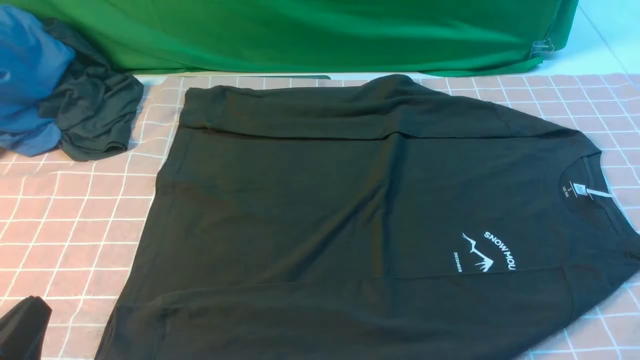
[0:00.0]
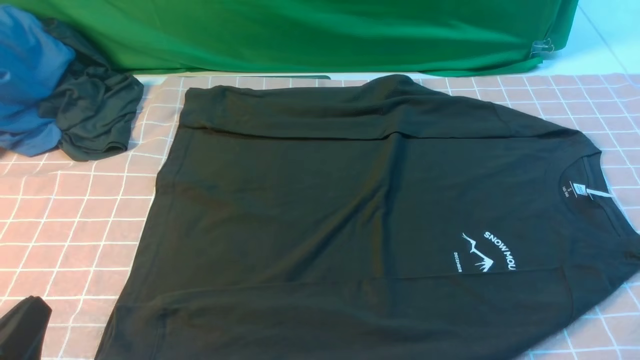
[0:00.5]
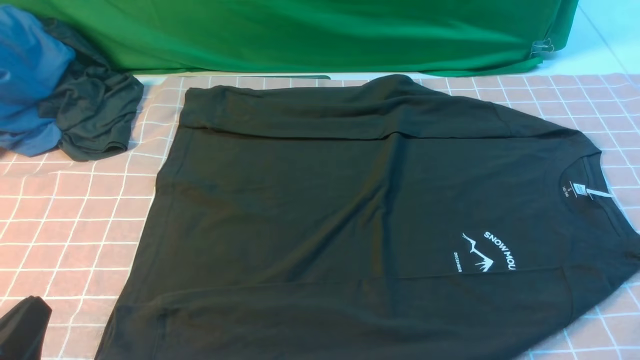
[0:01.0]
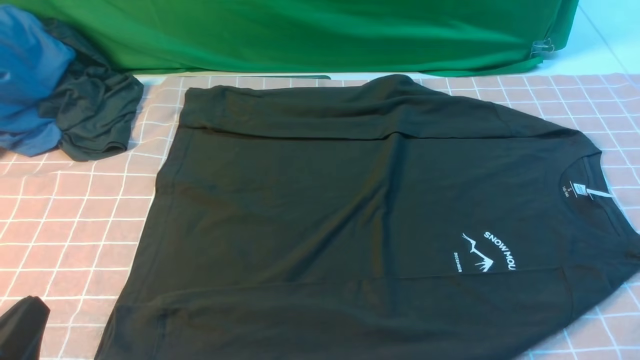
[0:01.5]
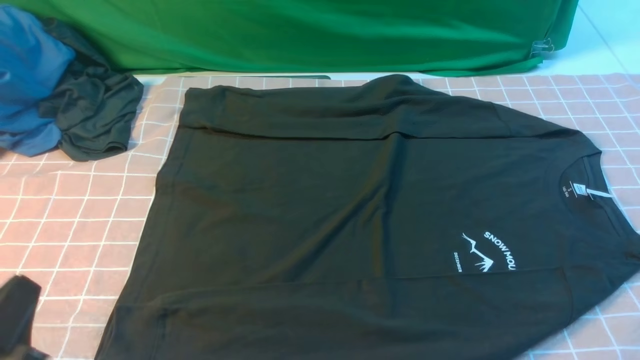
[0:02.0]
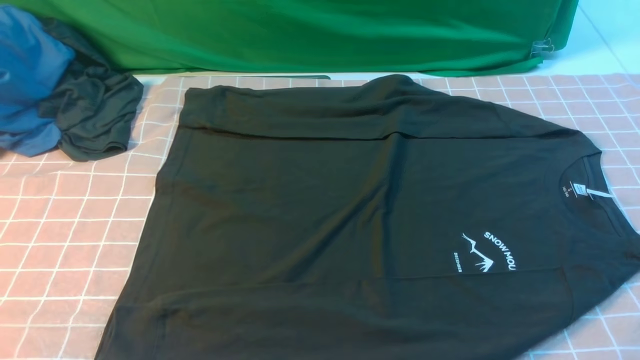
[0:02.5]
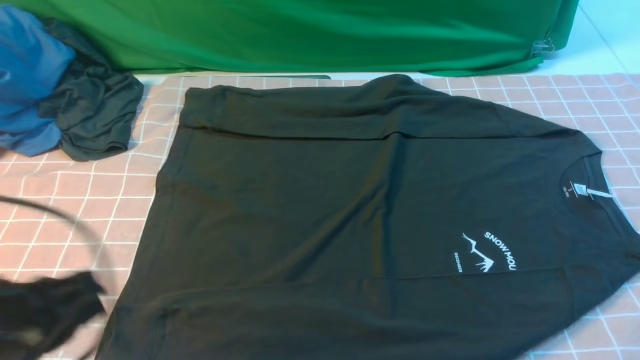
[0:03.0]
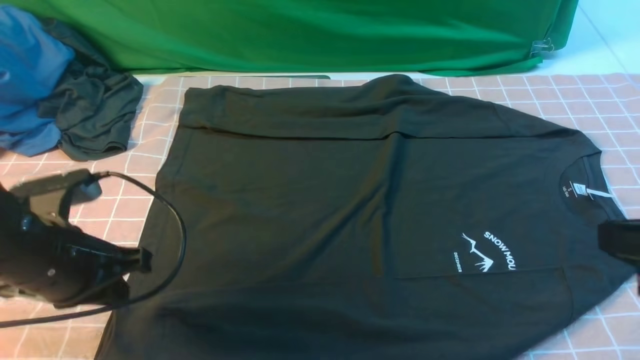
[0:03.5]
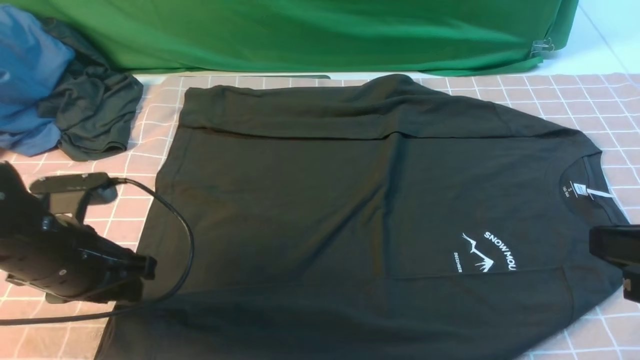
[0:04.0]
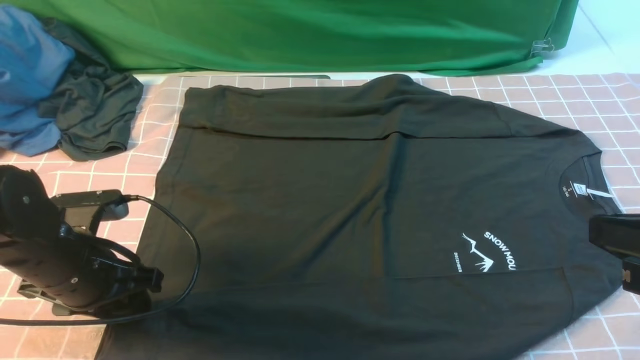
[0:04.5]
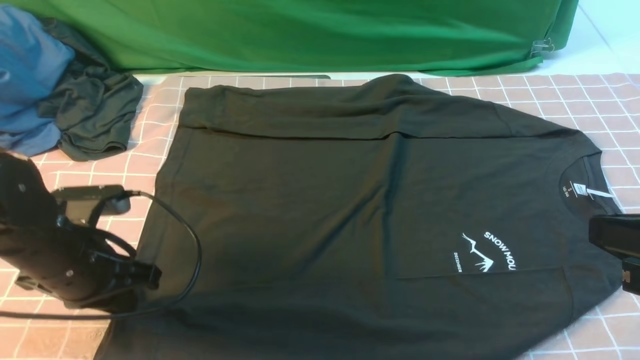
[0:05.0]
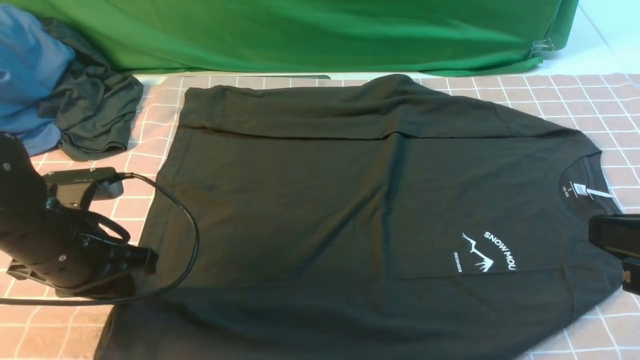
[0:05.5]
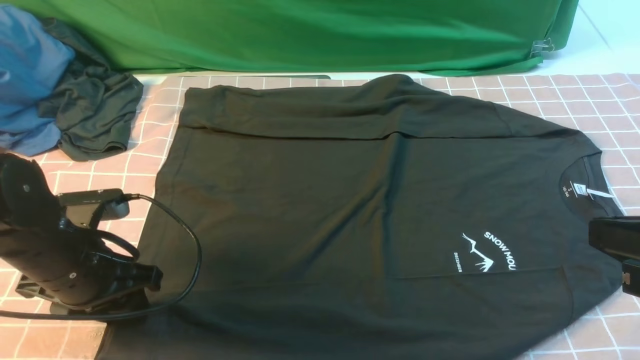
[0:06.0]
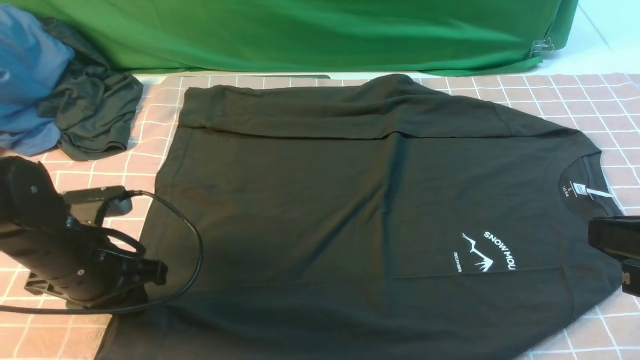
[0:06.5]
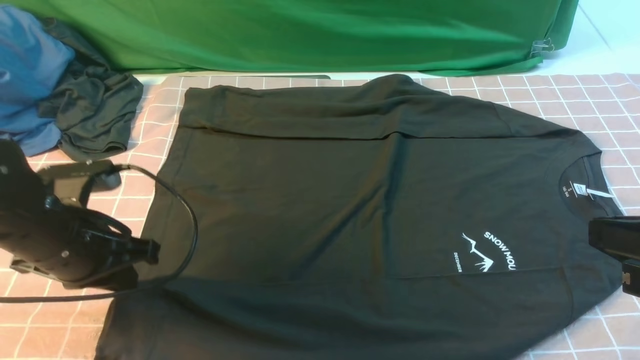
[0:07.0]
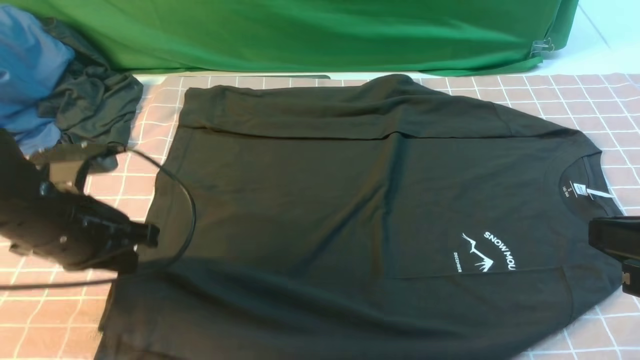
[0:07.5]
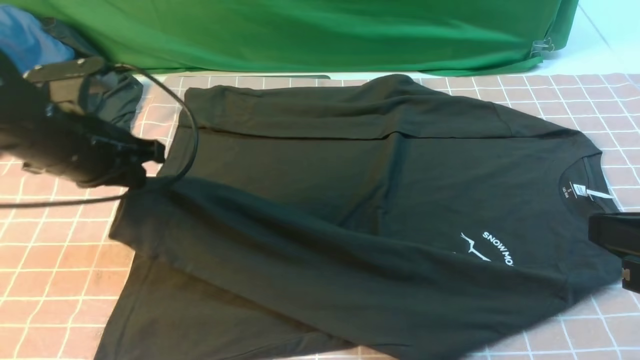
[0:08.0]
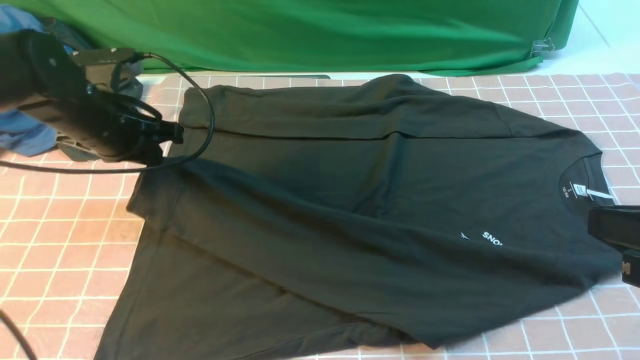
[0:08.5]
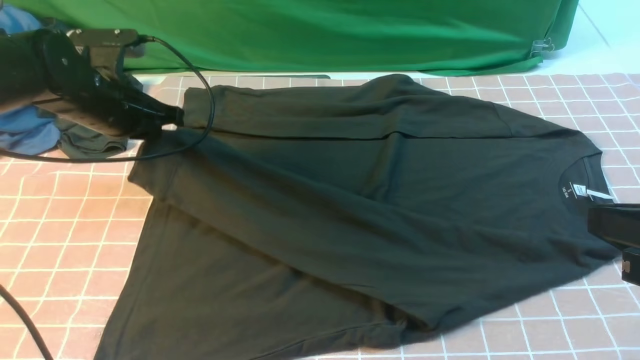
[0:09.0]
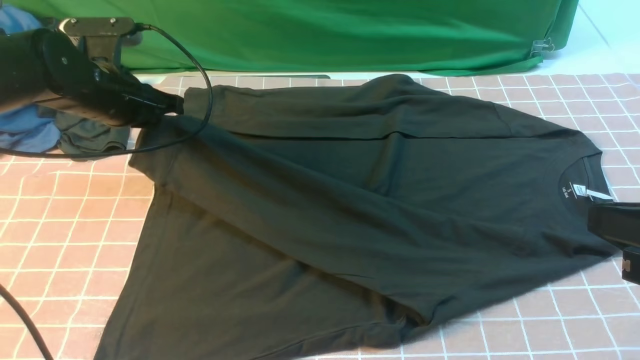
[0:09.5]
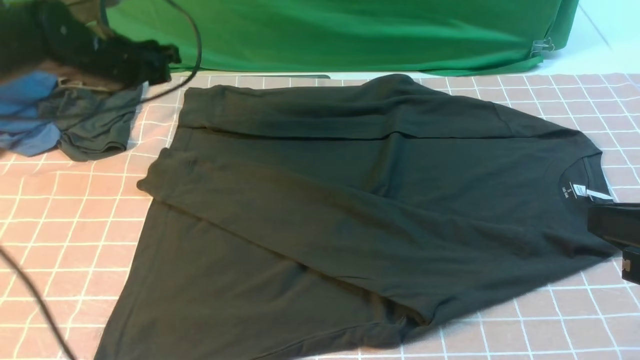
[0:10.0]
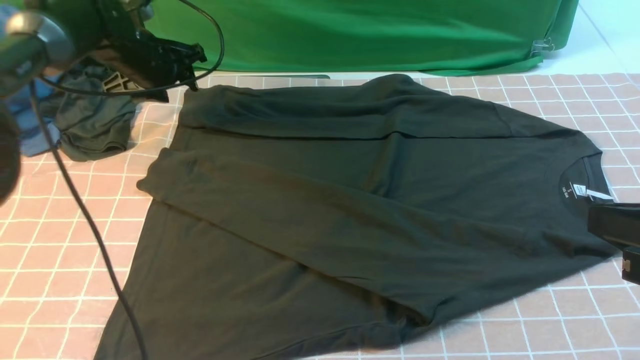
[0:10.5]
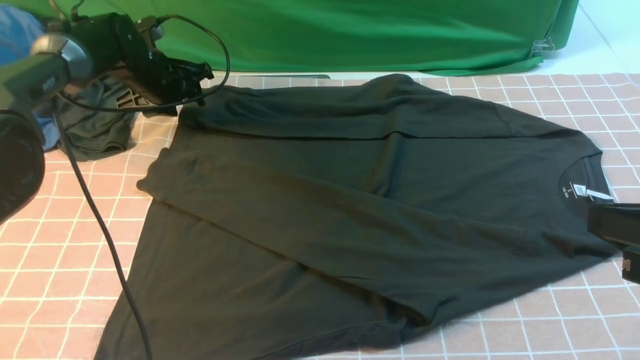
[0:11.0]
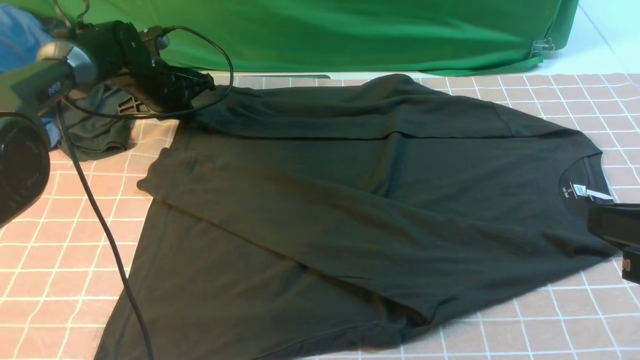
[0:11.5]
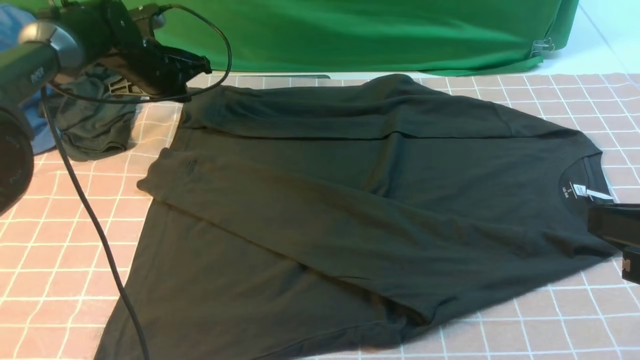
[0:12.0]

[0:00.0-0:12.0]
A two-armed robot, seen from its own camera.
Step, 0:00.0 to 0:07.0: use the left arm to clamp the cuff closest to it.
Step, 0:07.5 to 0:09.5: use the left arm to drag and place the cuff at the centered position on the left edge of the fabric.
0:02.0 to 0:04.0: The right gripper goes approximately 15 cm upward, forward and to the left, and closes up, while the left gripper travels forward by some 20 cm, and opens its fingers.
0:04.0 to 0:06.0: The left gripper closes and opens again.
0:06.0 to 0:08.0: The left gripper moves upward and forward, approximately 10 cm, and closes its fingers.
0:08.0 to 0:10.0: The left gripper heads forward, covering some 15 cm, and opens up.
0:10.0 to 0:12.0: The left gripper moves forward and downward, about 10 cm, and closes up.

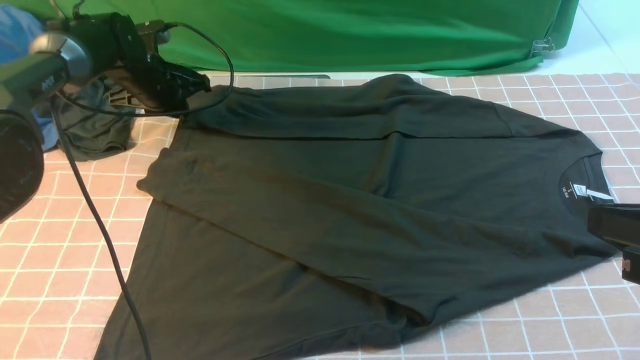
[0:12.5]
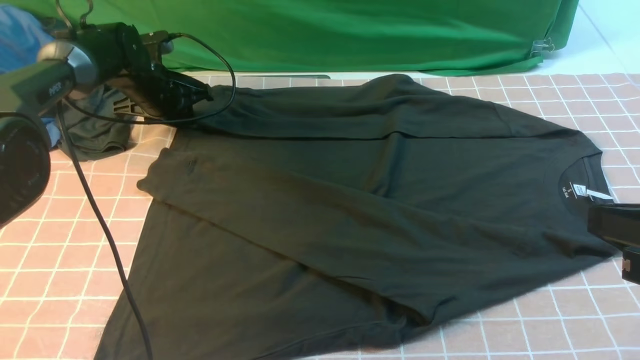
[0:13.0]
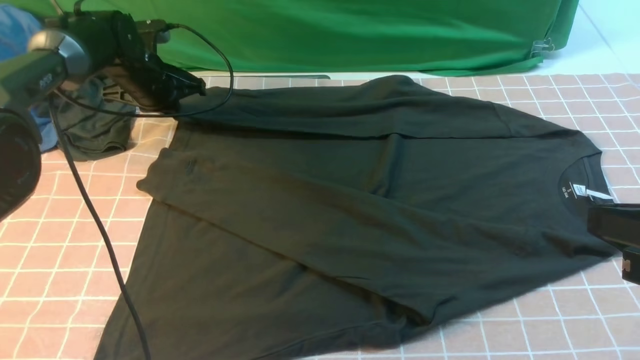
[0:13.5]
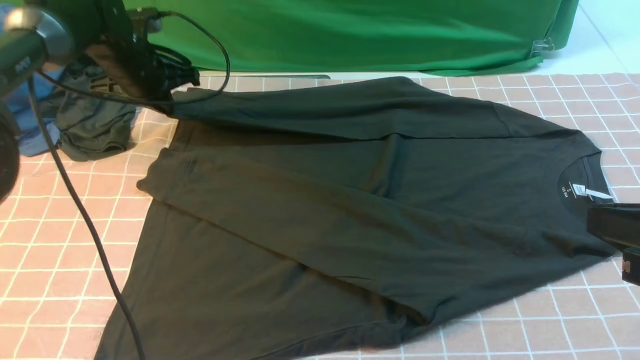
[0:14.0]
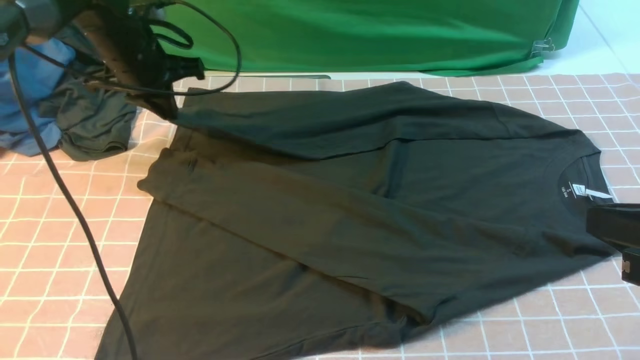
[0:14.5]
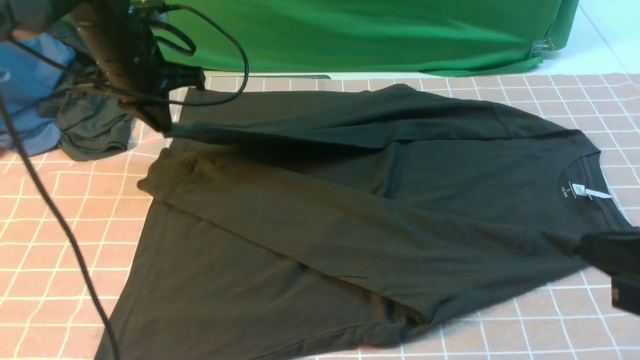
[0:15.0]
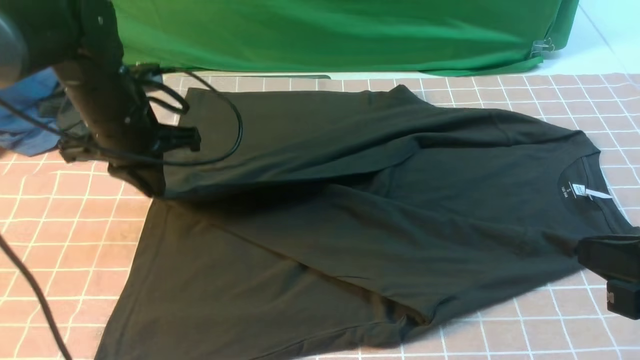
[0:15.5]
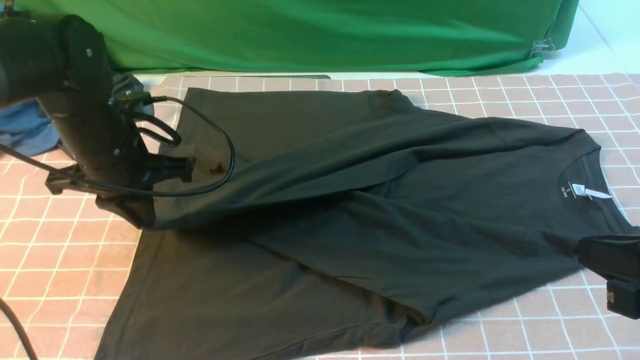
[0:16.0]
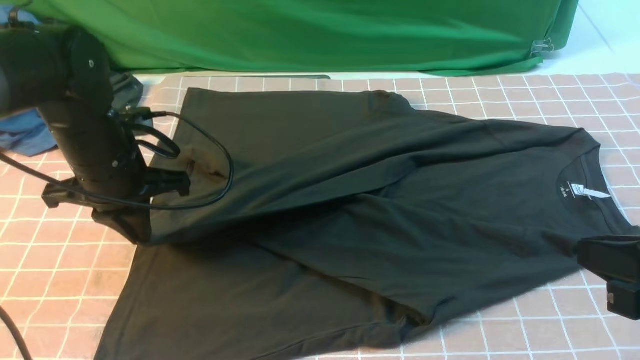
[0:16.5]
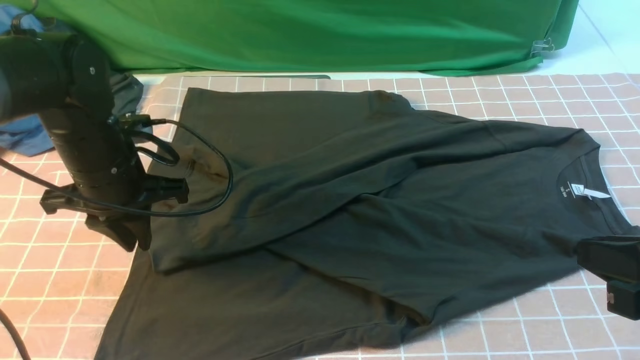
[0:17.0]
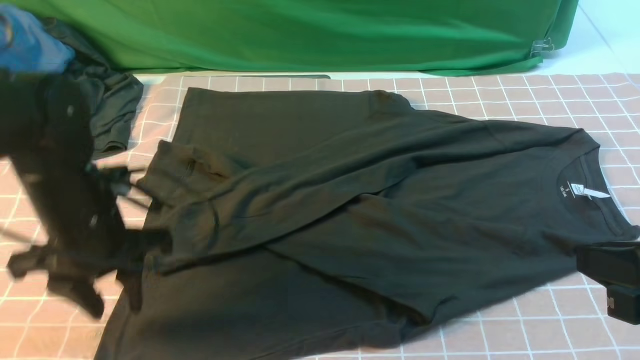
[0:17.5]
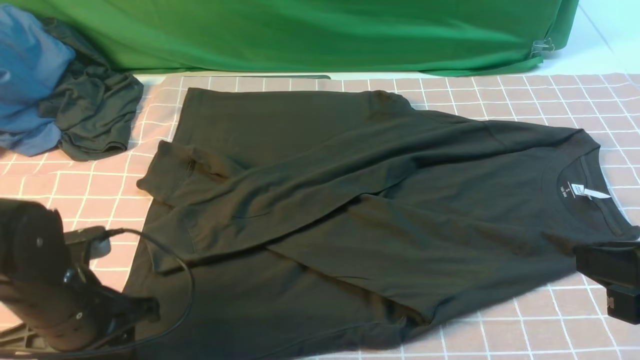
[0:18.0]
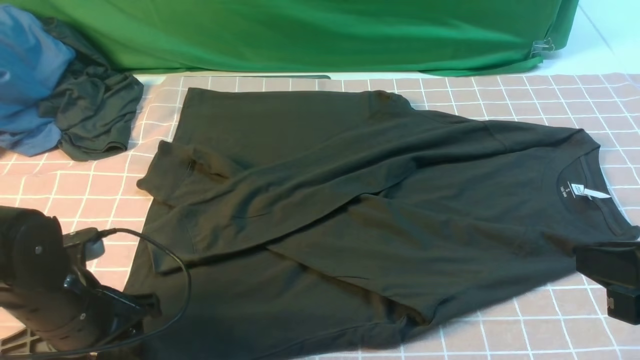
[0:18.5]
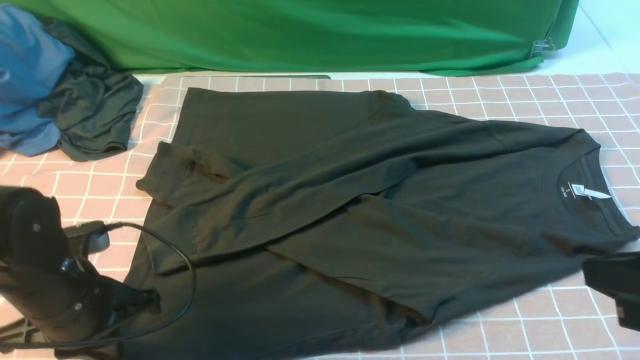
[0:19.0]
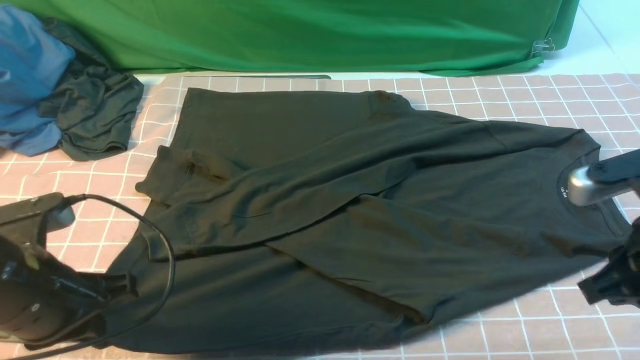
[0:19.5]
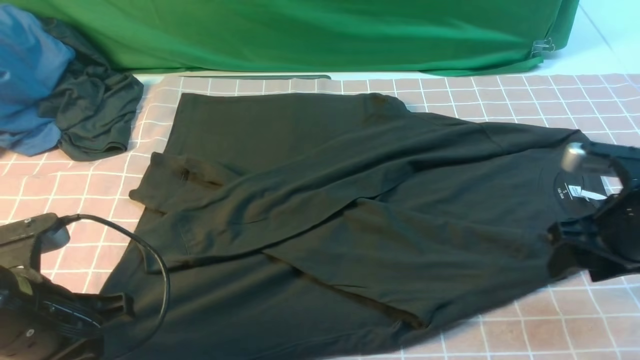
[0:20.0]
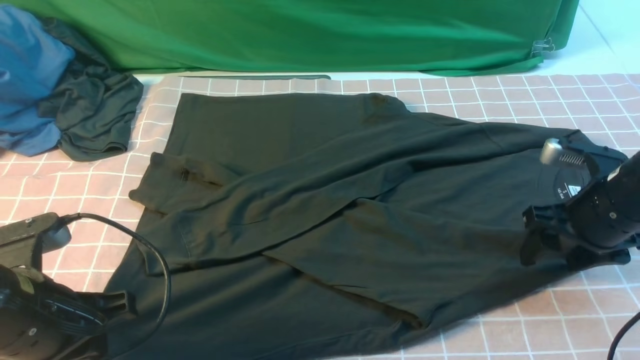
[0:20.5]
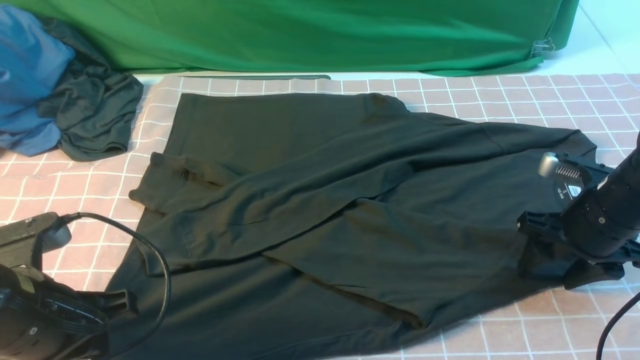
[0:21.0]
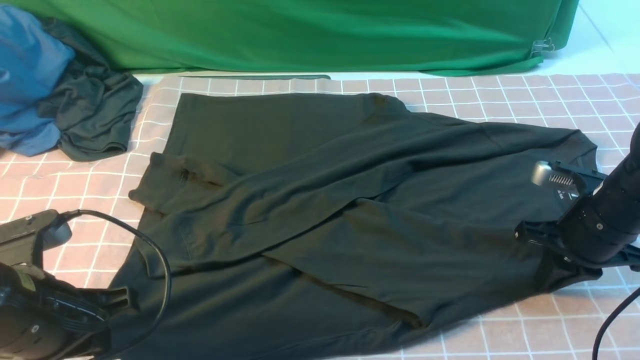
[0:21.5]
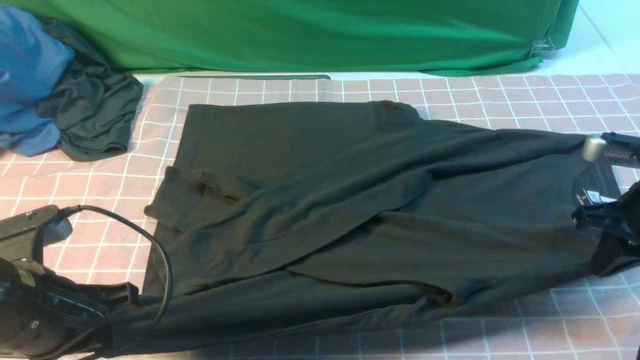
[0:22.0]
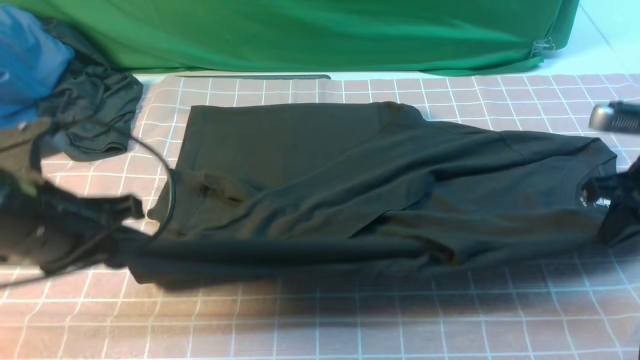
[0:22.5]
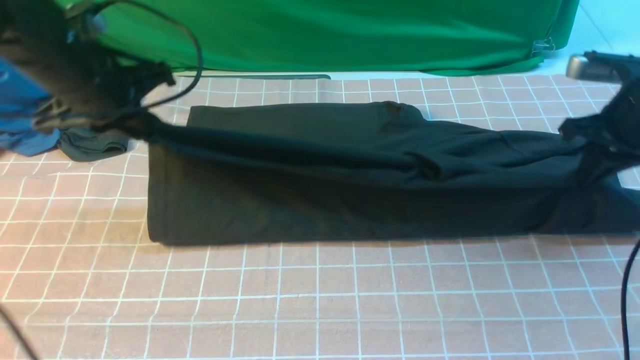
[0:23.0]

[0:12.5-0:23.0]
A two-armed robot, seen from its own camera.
Step, 0:13.5 to 0:17.0: use the left arm to drag and drop the cuff onto the cuff closest to the left arm.
Step, 0:17.5 to 0:21.5: use both arms simultaneously to clamp the lower edge of the clothing fabric.
0:12.5 to 0:14.5: The left gripper goes approximately 10 cm upward and backward.
0:14.5 to 0:16.5: The left gripper heads backward, covering some 15 cm.
0:16.5 to 0:19.0: The left gripper travels backward by approximately 15 cm, and opens, then closes once more.
0:19.0 to 0:21.0: The left gripper shifts by some 5 cm. The right gripper is displaced forward and downward by about 20 cm, and opens.
0:21.0 to 0:23.0: The left gripper goes roughly 20 cm forward, while the right gripper is displaced upward and forward by approximately 10 cm, and closes its fingers.
